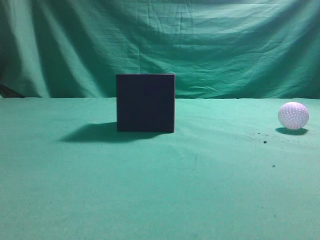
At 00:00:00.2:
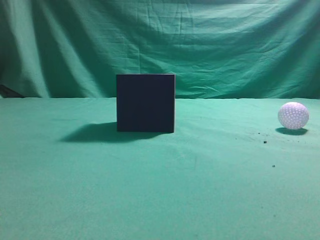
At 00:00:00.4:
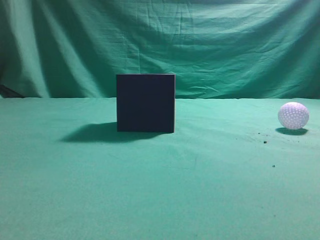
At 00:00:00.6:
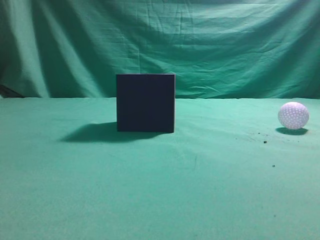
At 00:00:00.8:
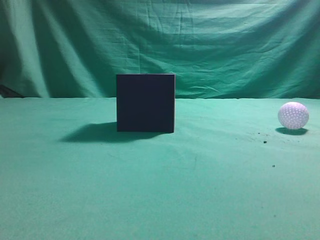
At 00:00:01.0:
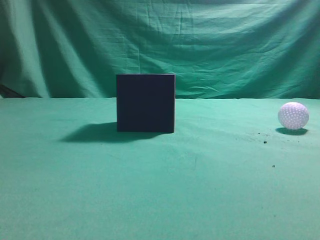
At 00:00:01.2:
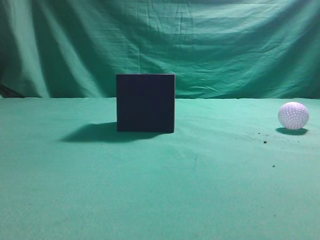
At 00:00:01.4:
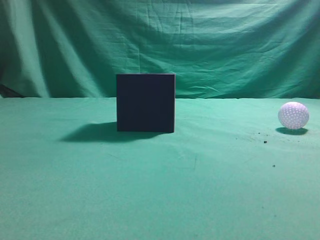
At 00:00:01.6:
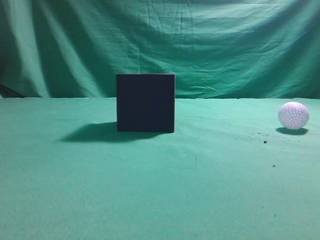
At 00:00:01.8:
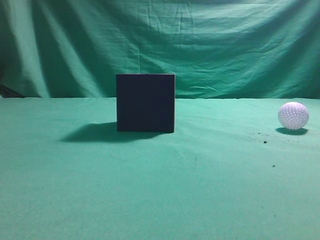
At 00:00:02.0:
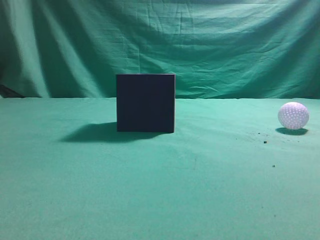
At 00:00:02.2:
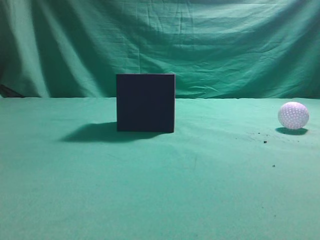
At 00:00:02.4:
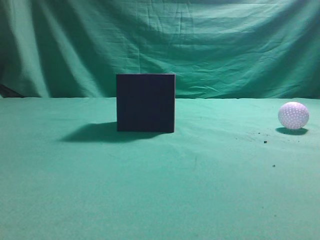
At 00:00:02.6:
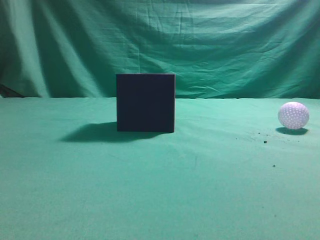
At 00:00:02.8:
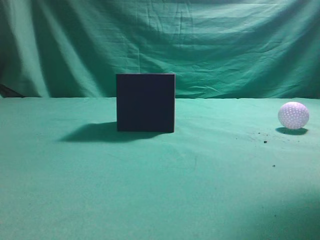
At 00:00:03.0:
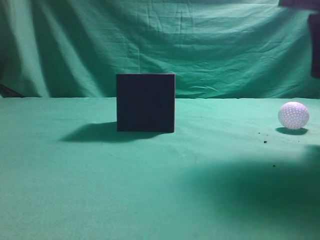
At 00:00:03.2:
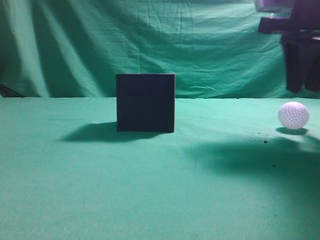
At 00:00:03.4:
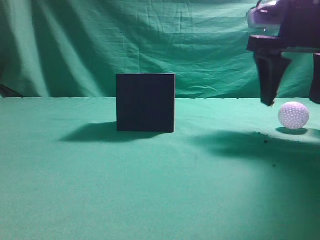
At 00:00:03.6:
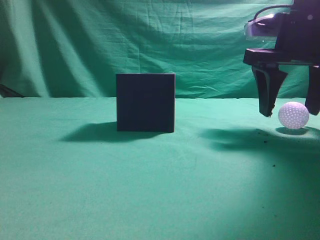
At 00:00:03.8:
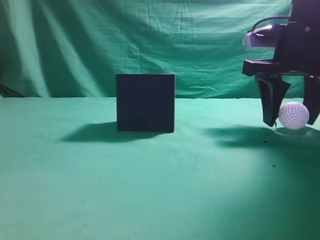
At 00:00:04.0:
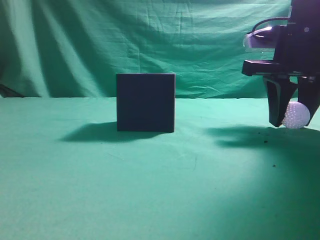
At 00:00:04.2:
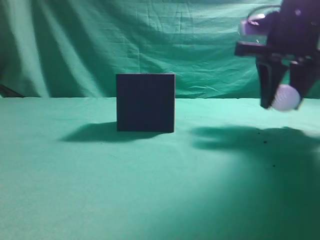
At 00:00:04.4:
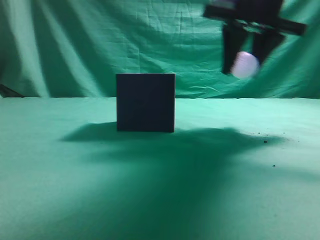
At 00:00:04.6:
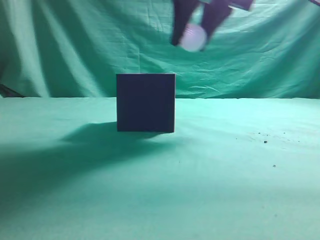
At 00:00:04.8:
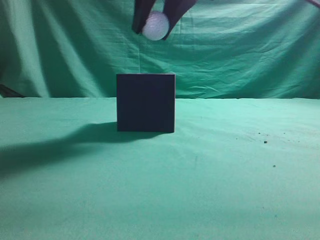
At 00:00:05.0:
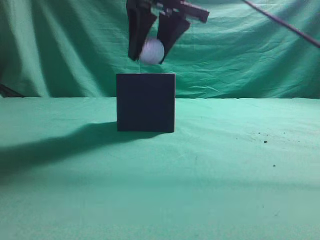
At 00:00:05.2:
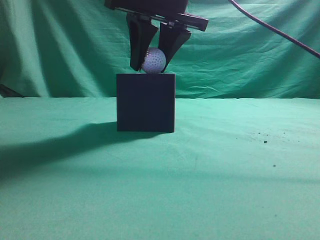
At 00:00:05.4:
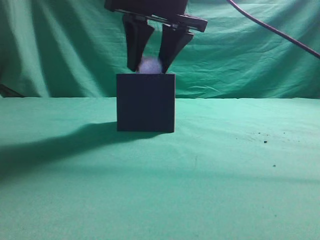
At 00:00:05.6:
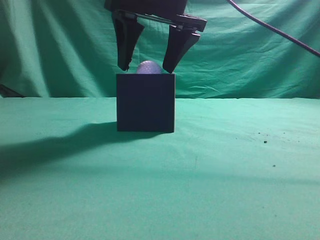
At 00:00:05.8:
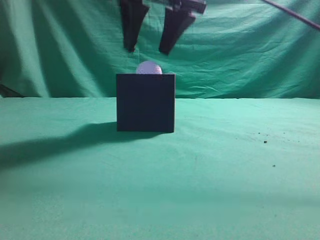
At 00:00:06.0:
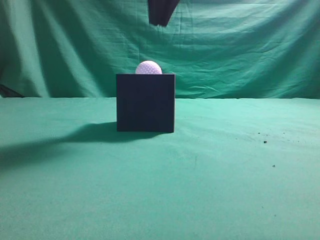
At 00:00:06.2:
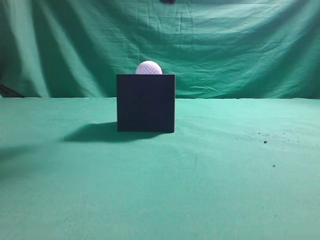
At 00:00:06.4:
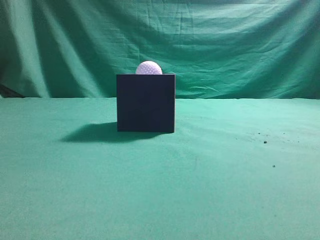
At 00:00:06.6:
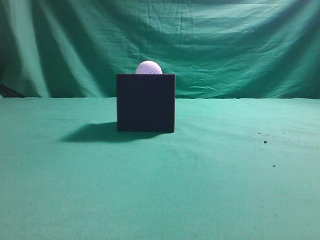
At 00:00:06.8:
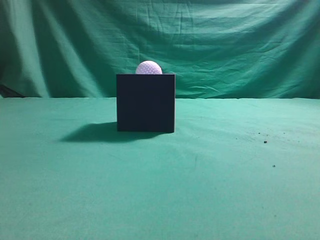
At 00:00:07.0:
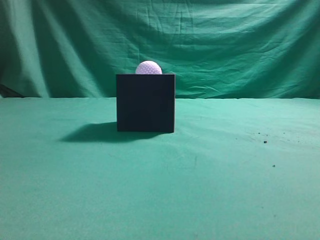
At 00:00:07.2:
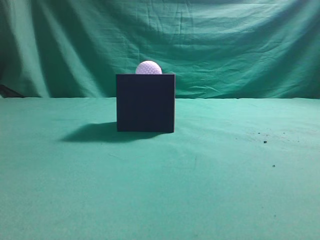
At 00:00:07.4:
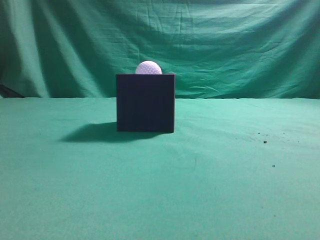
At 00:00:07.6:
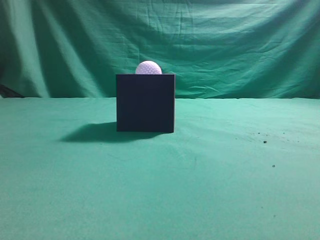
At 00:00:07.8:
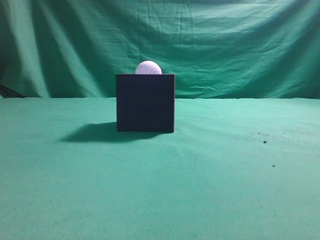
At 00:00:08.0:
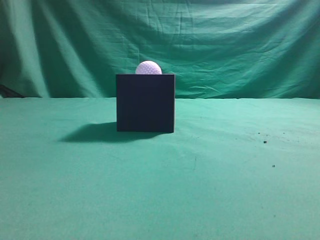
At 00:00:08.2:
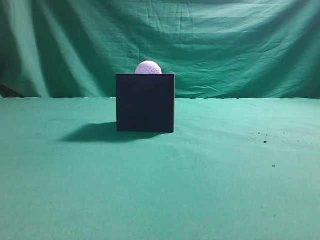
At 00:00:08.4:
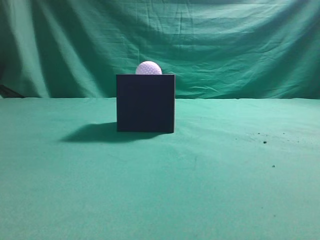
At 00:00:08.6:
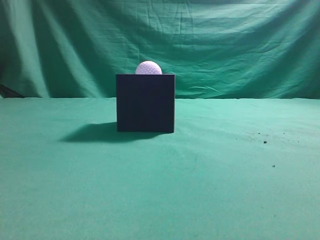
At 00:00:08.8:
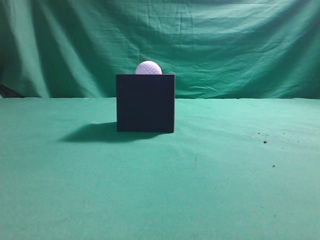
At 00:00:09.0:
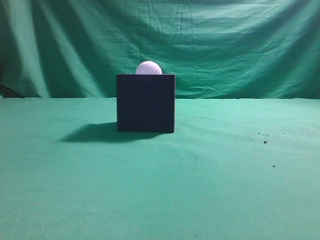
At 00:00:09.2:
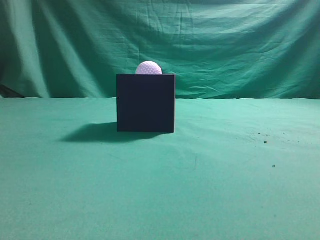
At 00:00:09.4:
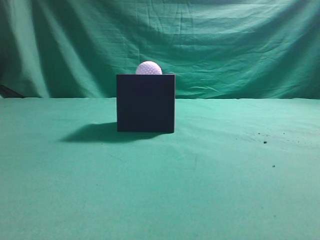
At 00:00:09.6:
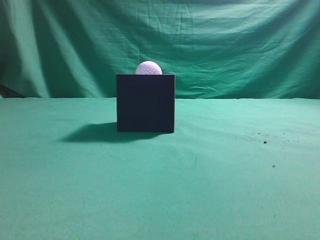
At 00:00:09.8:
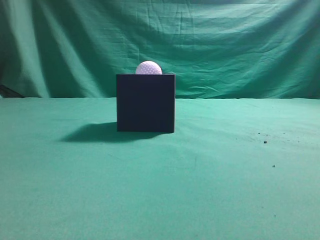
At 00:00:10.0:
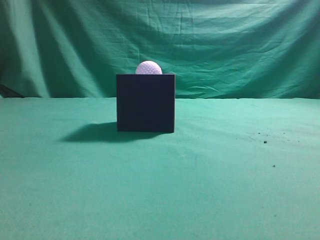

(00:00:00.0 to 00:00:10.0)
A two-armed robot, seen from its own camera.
Task of the whole recording: Pick up the ball and place it in the circular groove above the cube.
Step, 00:00:00.0 - 00:00:03.4: Grasp the sphere on the table.
Step, 00:00:03.6 - 00:00:04.8: Place the sphere into the sphere-shaped recess.
00:00:01.4 - 00:00:02.8: The right gripper shifts about 20 cm forward.
00:00:02.8 - 00:00:04.2: The right gripper travels forward and downward by roughly 15 cm, and opens its fingers.
00:00:04.2 - 00:00:05.8: The right gripper heads to the left and upward, covering about 20 cm, and opens.
00:00:05.8 - 00:00:07.2: The right gripper heads backward and to the right, covering approximately 30 cm, and closes.
